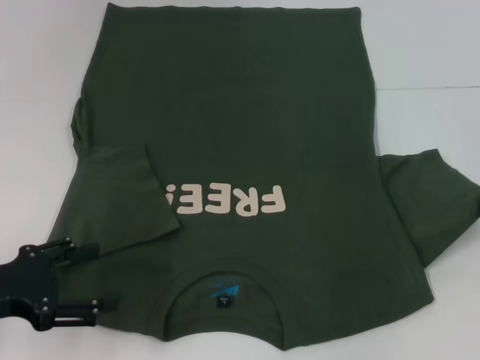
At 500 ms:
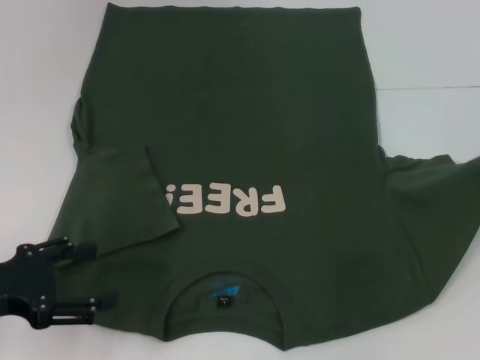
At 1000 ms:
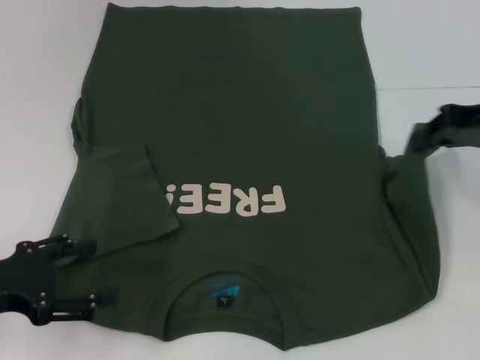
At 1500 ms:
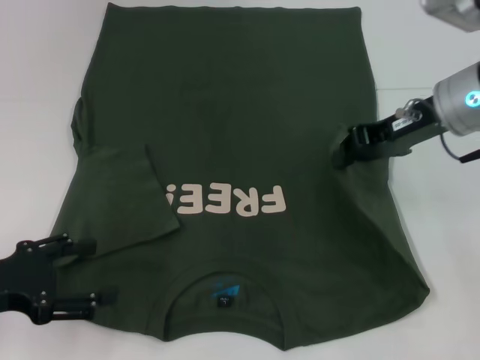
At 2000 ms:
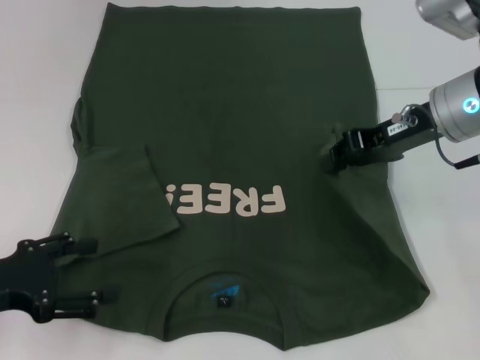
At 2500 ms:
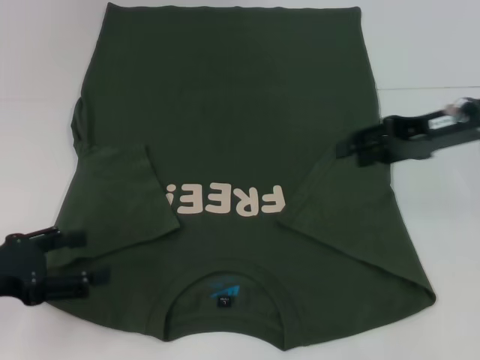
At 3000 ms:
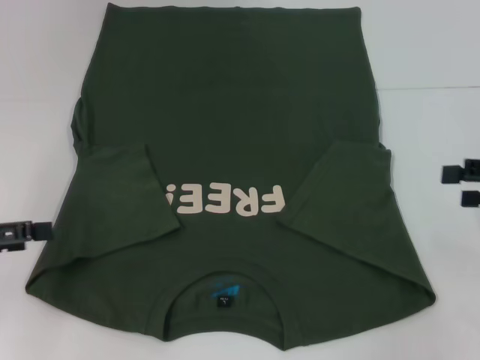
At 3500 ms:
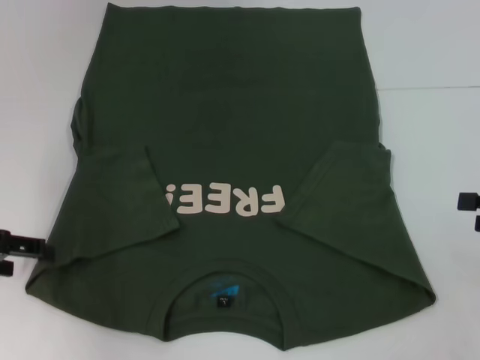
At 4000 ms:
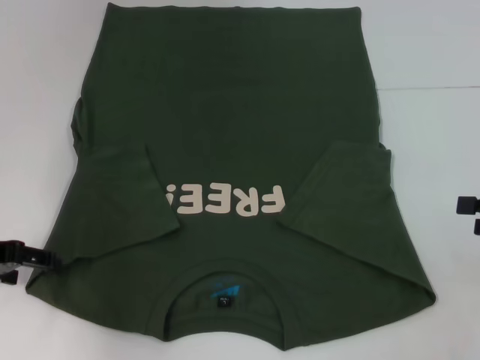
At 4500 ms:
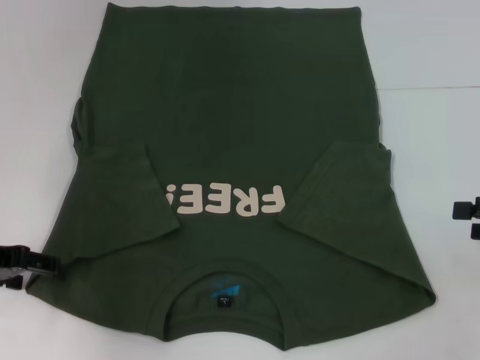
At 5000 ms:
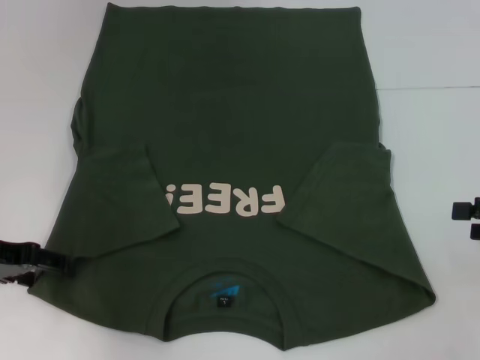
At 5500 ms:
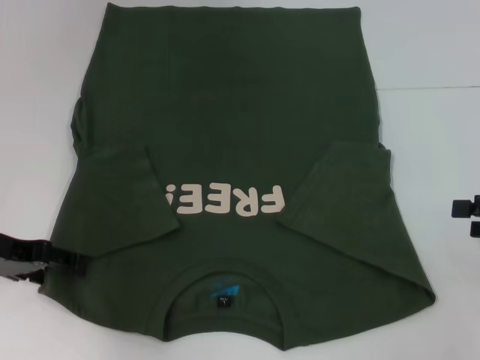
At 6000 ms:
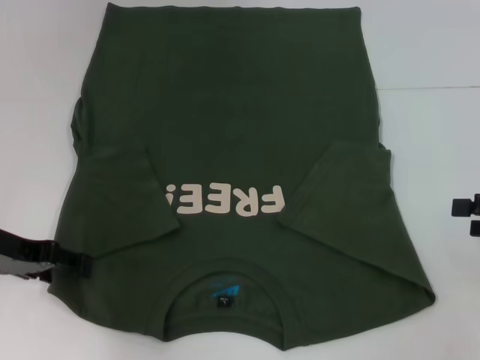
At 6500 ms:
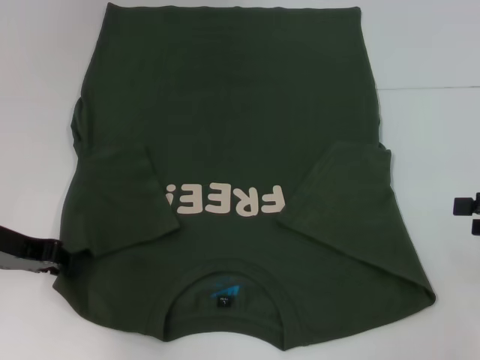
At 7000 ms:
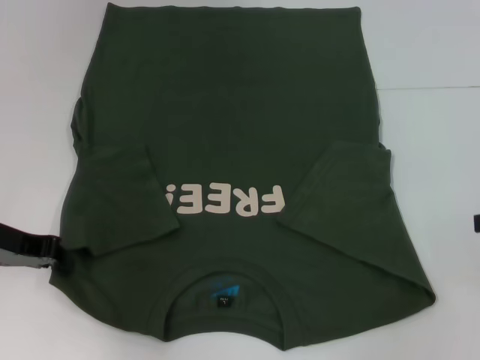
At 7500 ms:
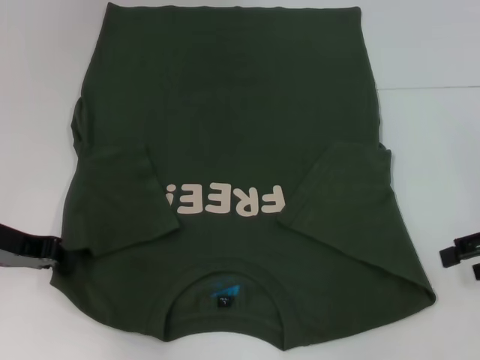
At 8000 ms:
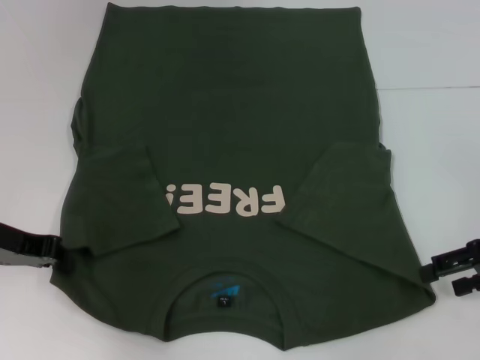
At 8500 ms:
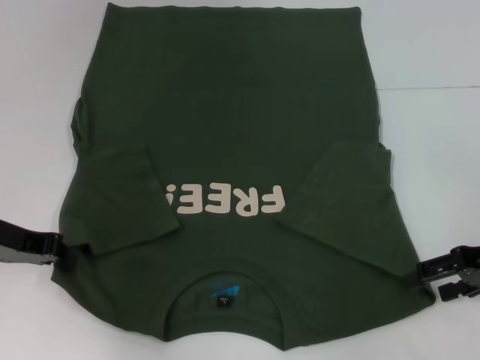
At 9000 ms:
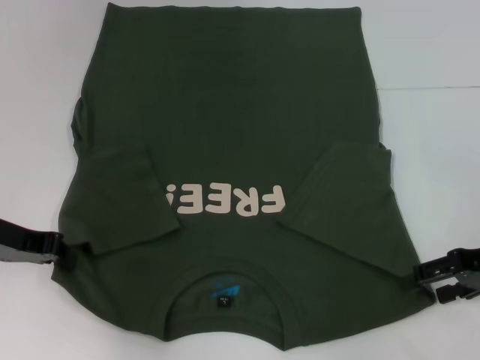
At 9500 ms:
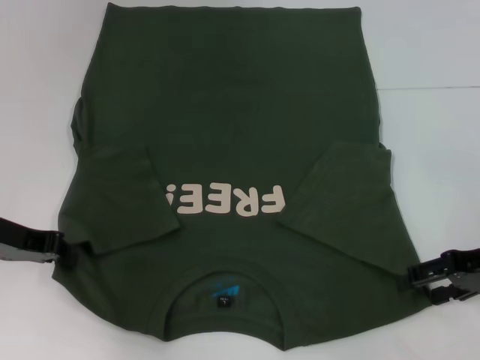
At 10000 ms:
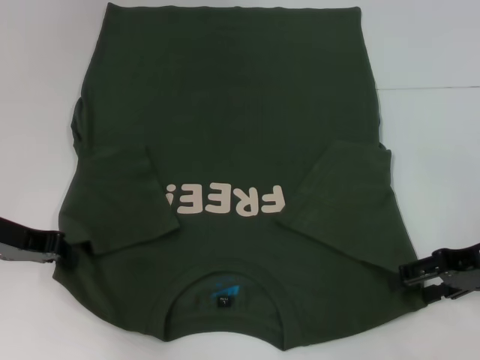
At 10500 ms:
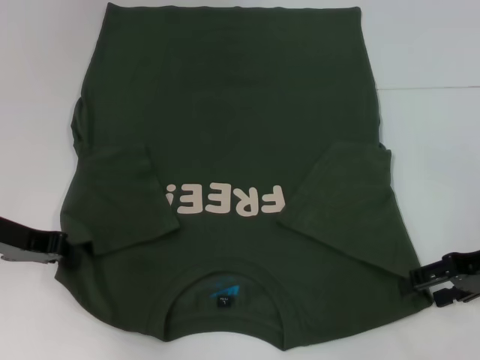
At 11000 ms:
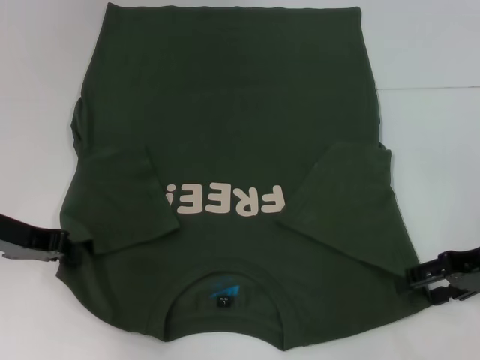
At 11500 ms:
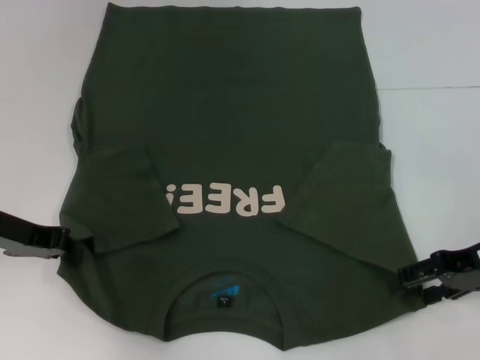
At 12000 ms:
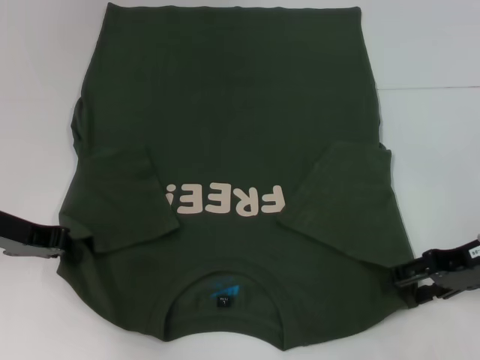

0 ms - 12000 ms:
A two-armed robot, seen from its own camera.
Step, 0 ms - 2000 ms: Fold the bottom right sleeve with your right hand.
Step, 2500 ms - 7000 ms: Grab the bottom left corner with your left hand.
0 ms - 2000 ms: The right gripper shifts roughly 15 cm to the left and forward.
2000 ms - 4000 ms: The right gripper is displaced to the right and backward by roughly 20 cm, and opens; the left gripper heads forward, covering about 10 cm.
4000 ms - 6000 ms: The grippers make only small movements.
6000 ms - 8000 ms: The right gripper ends up about 5 cm from where it was. Meanwhile the left gripper closes up.
8000 ms - 10000 ms: The grippers stay close to where they were, moving slightly.
10000 ms - 12000 ms: The two grippers keep their place.

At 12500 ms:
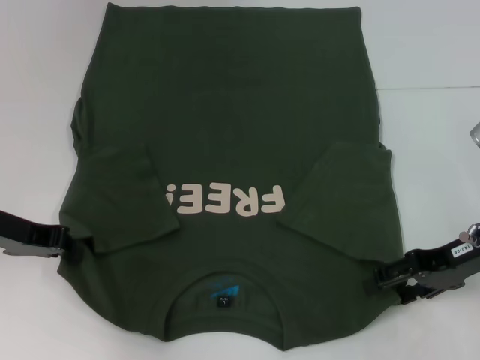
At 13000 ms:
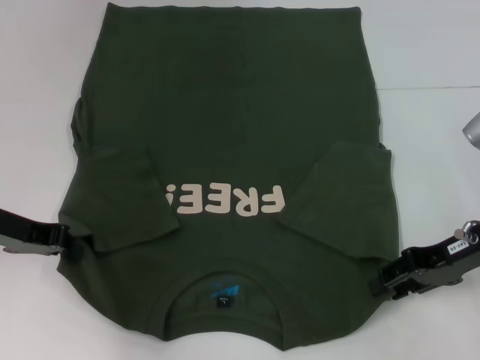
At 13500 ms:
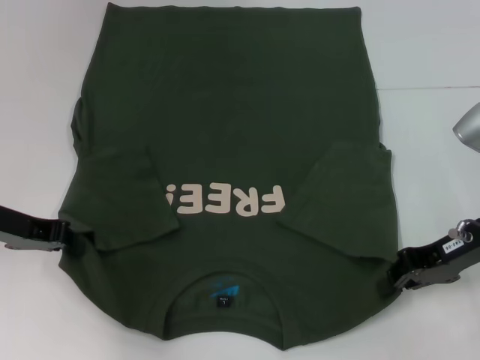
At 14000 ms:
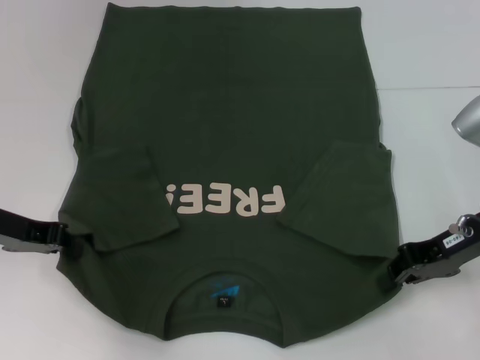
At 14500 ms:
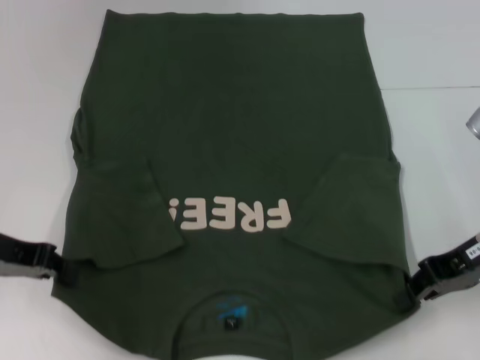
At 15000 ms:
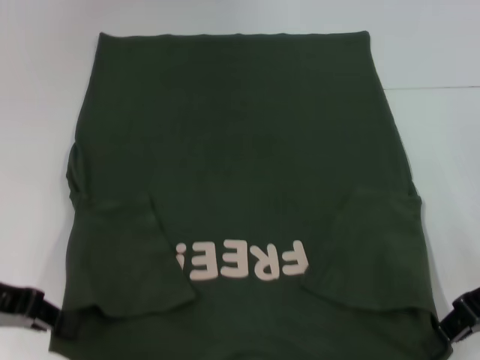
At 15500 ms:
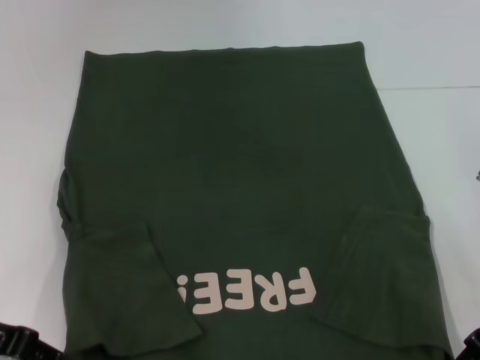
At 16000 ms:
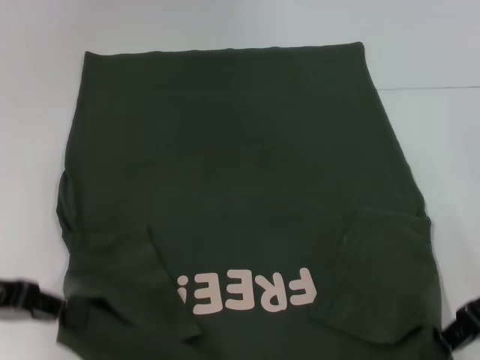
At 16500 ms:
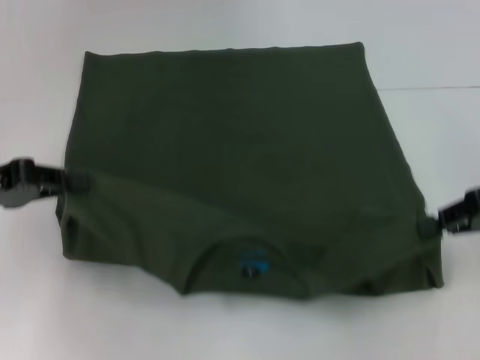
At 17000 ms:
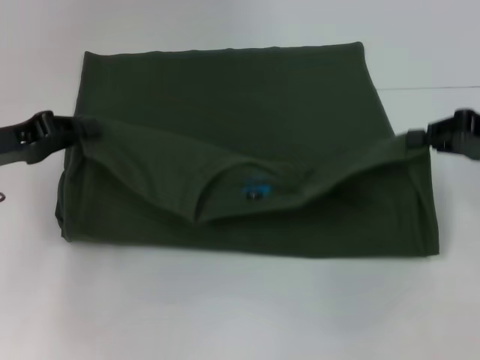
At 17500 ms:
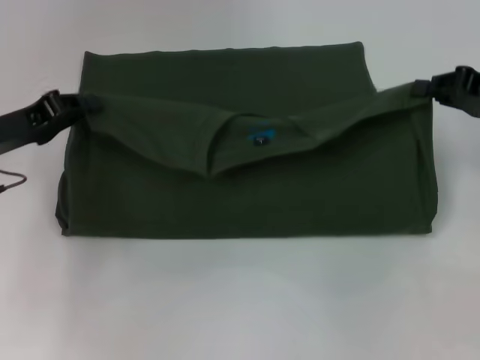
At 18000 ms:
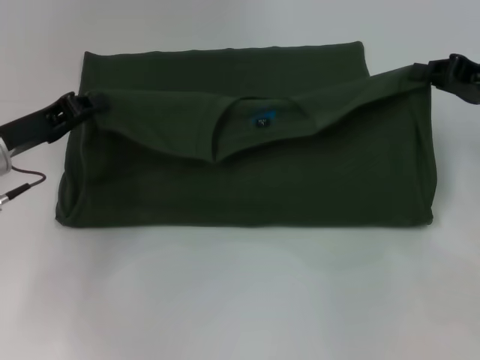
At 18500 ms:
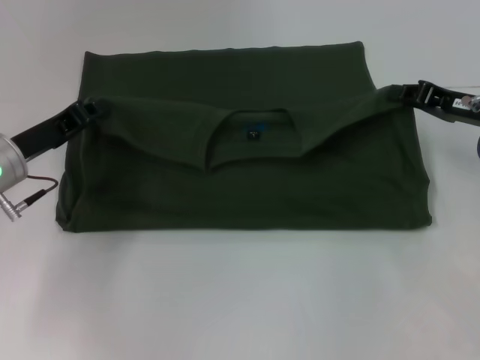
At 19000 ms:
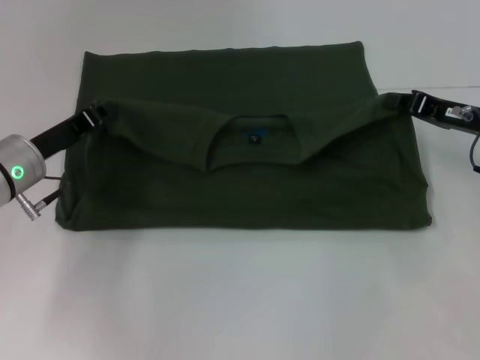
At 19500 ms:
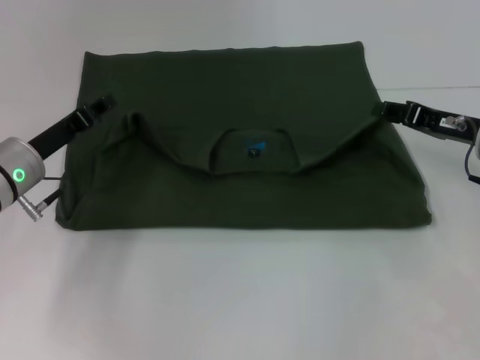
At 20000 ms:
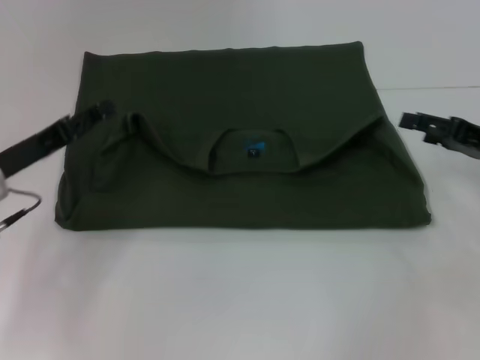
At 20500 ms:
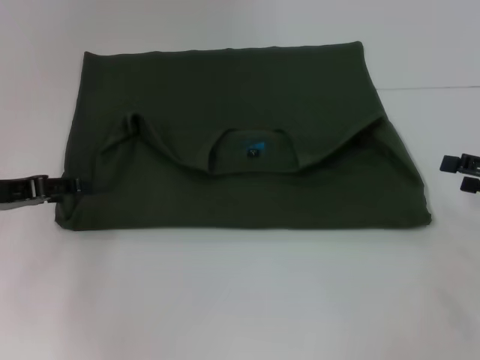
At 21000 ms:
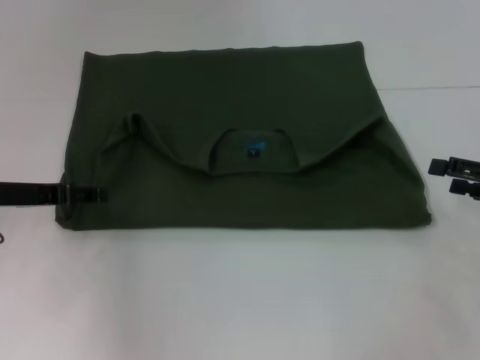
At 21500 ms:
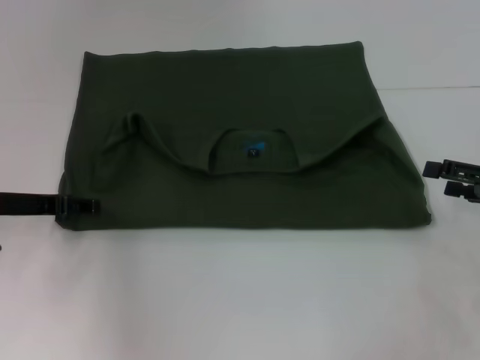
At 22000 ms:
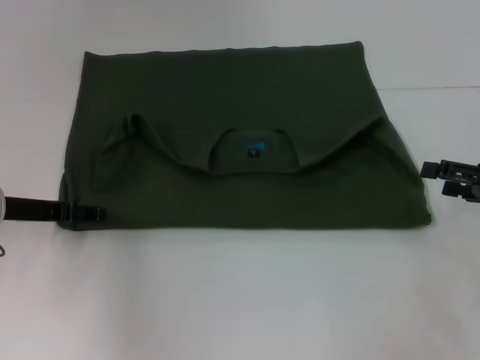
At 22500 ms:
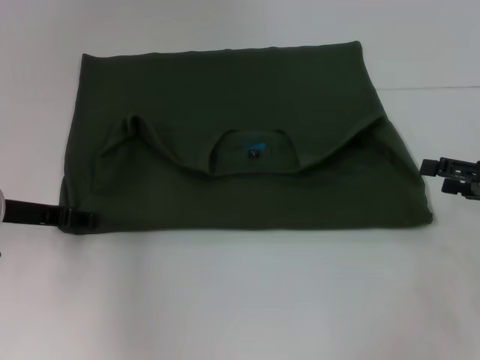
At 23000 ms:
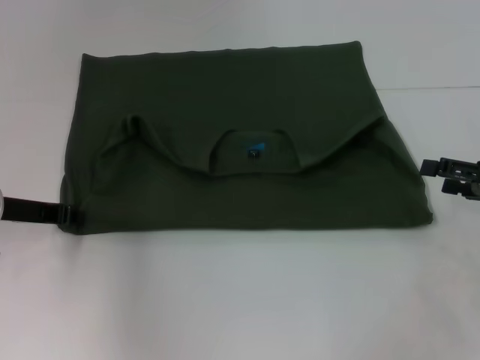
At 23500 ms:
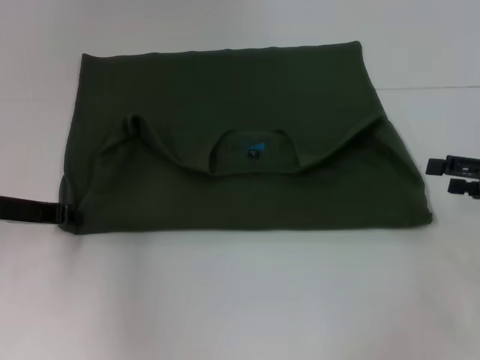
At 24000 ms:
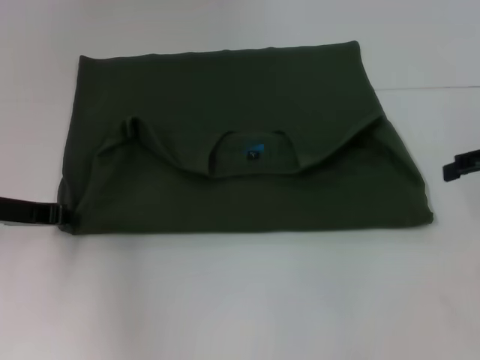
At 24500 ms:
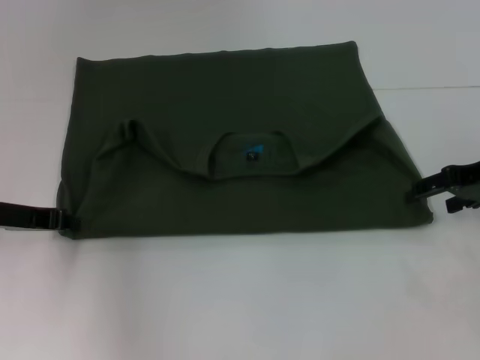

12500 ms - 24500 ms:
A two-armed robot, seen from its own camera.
Step, 14000 ms - 19000 ms: Fold the clothes with your left hand.
Step, 14000 ms - 19000 ms: Fold the clothes with your right hand.
12500 ms - 14500 ms: The right gripper closes its fingers.
14500 ms - 16500 ms: The right gripper shifts some 5 cm to the right.
16500 ms - 18500 ms: The left gripper travels downward, to the right and forward by approximately 10 cm; the right gripper heads forward, covering about 5 cm.
18500 ms - 20500 ms: The left gripper travels to the left by about 5 cm, and opens. Meanwhile the right gripper moves to the right and backward, about 10 cm, and opens.
20500 ms - 22500 ms: The grippers make only small movements.
22500 ms - 24500 ms: The left gripper closes, while the right gripper heads forward and upward, covering roughly 10 cm.

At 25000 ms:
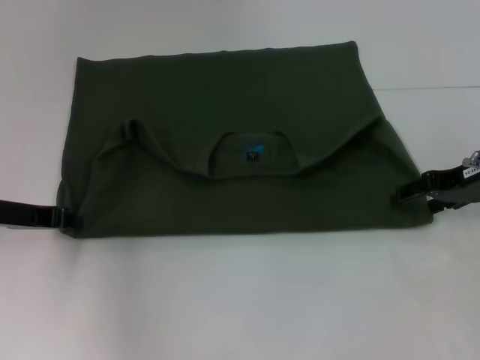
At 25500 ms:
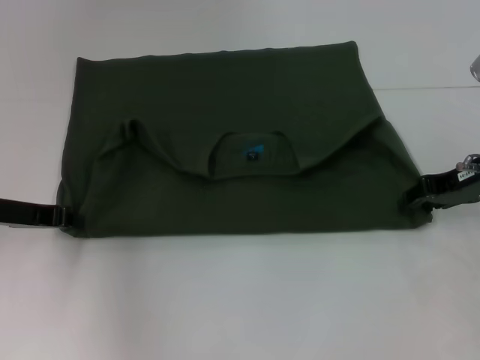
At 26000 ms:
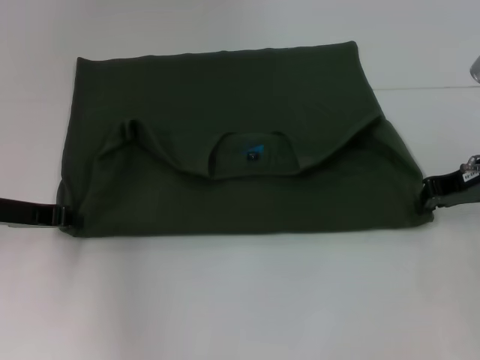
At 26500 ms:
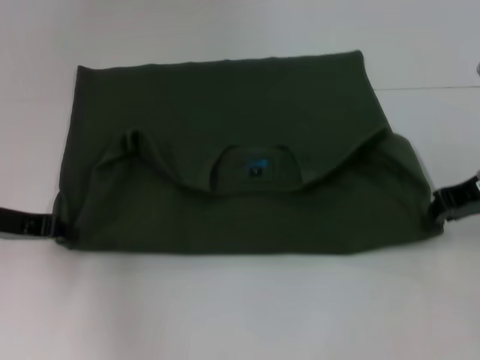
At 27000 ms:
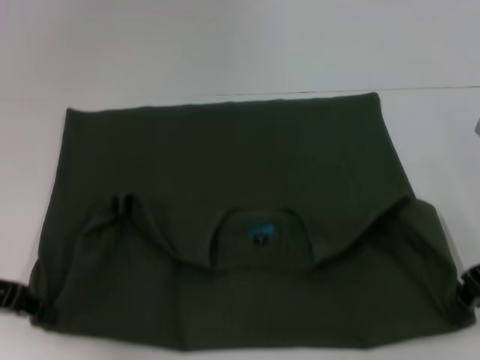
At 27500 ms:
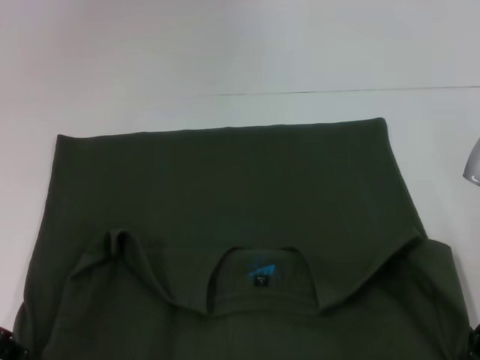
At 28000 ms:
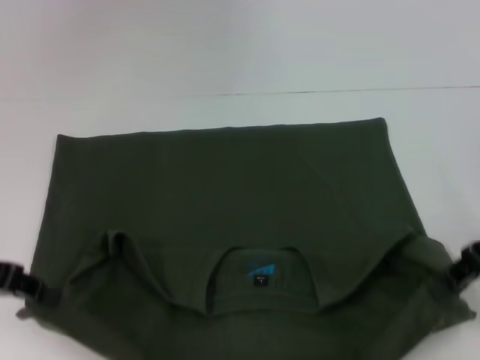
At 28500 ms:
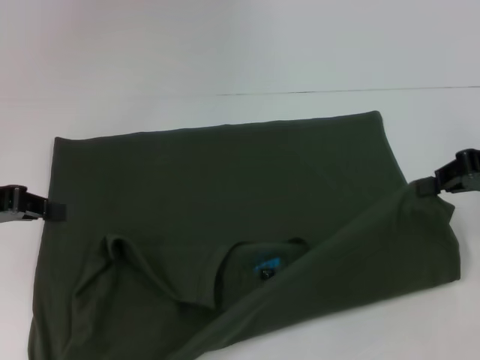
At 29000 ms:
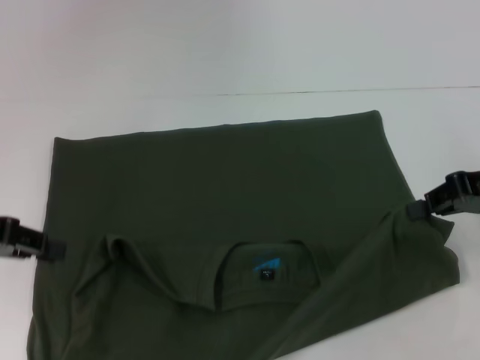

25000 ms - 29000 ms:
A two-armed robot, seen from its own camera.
Step, 25000 ms - 27500 ms: Pull the clothes with your left hand.
Step, 25000 ms - 27500 ms: Pull the clothes with your right hand.
25000 ms - 27000 ms: Both grippers move backward, some 5 cm. The right gripper closes.
